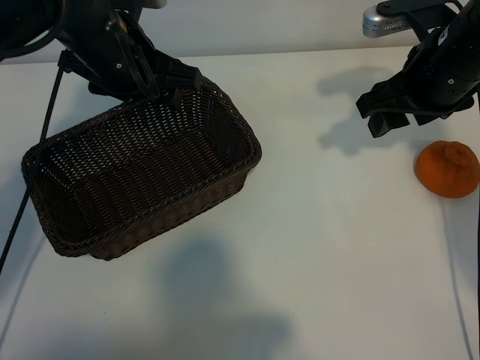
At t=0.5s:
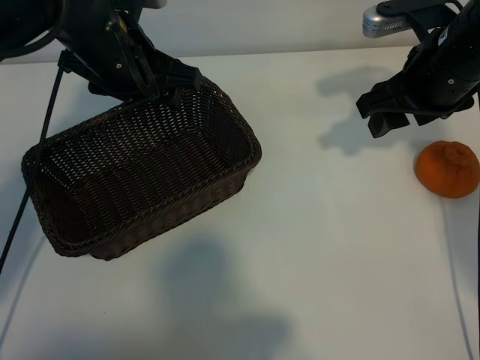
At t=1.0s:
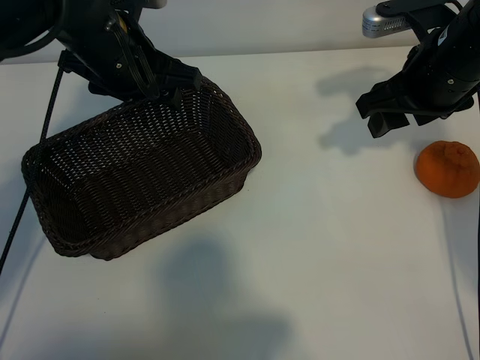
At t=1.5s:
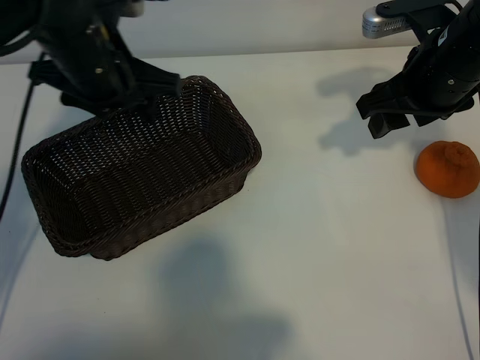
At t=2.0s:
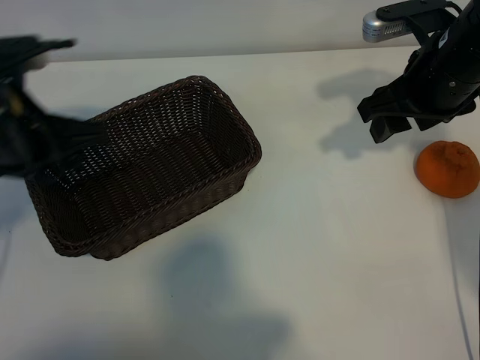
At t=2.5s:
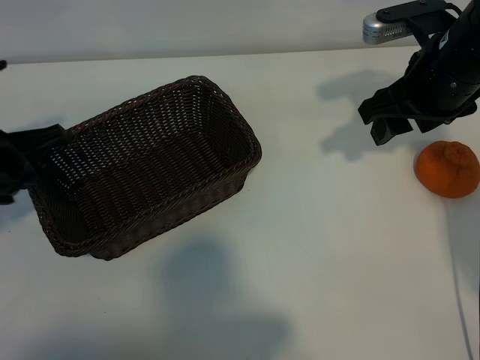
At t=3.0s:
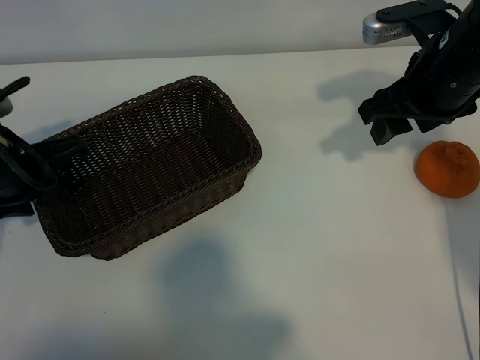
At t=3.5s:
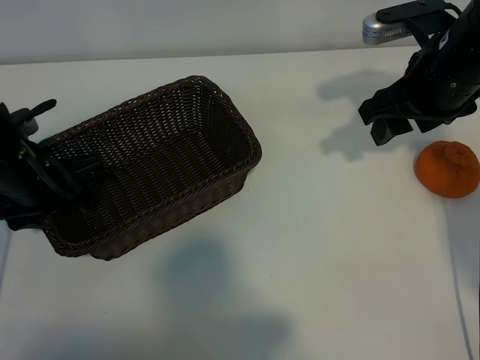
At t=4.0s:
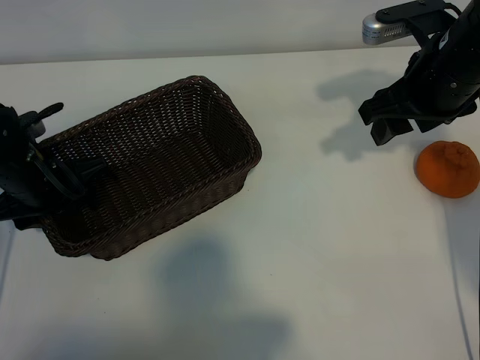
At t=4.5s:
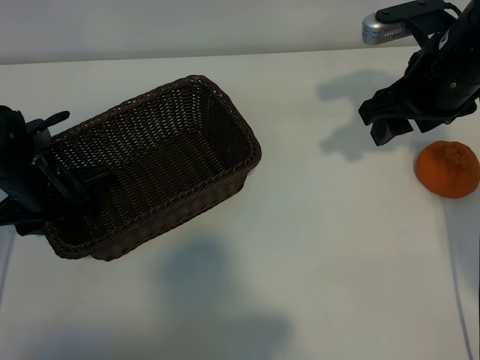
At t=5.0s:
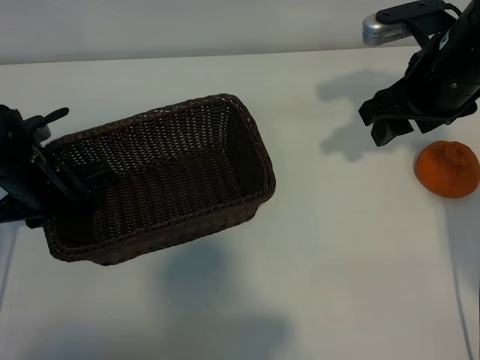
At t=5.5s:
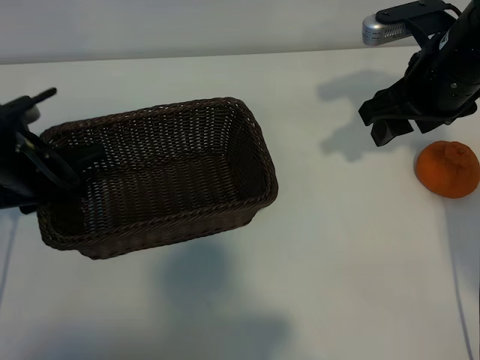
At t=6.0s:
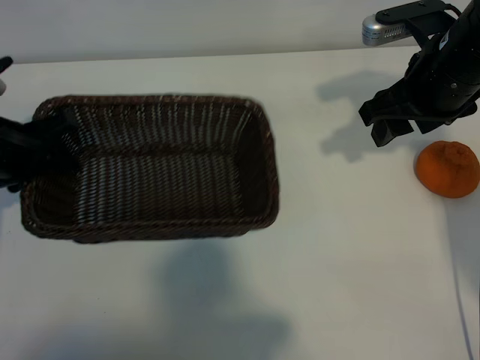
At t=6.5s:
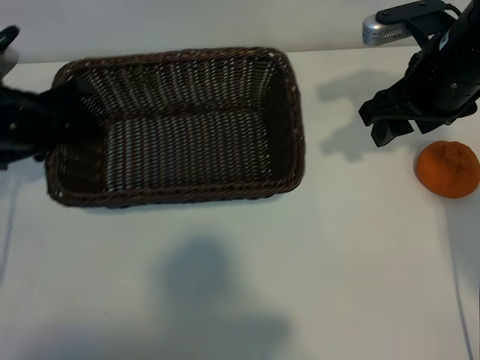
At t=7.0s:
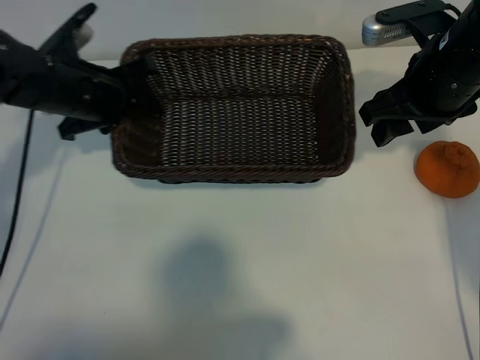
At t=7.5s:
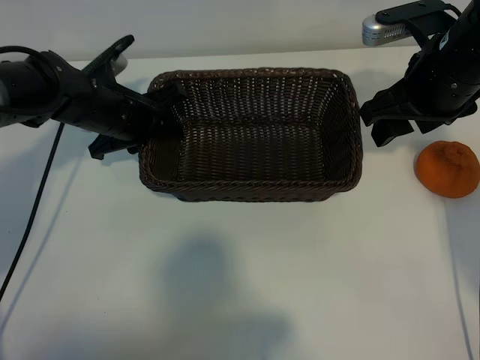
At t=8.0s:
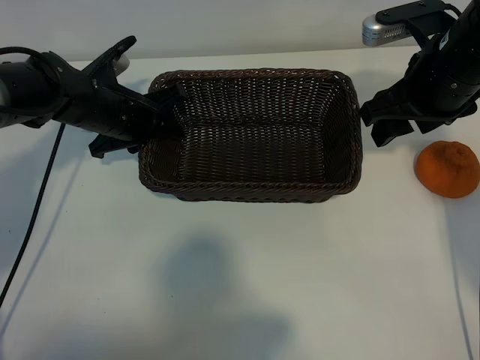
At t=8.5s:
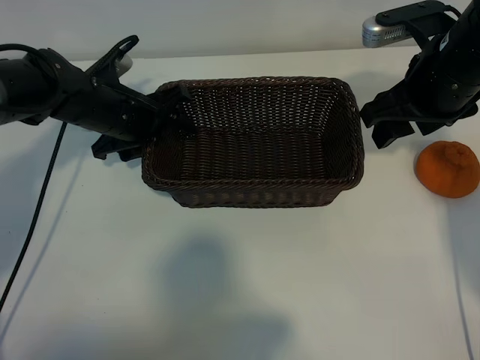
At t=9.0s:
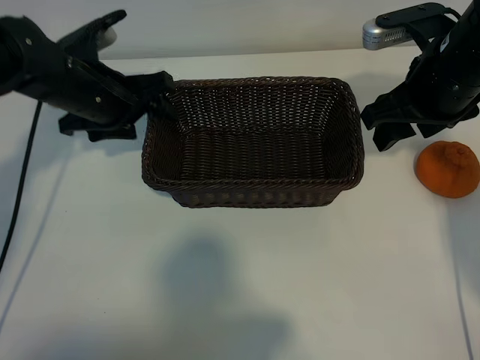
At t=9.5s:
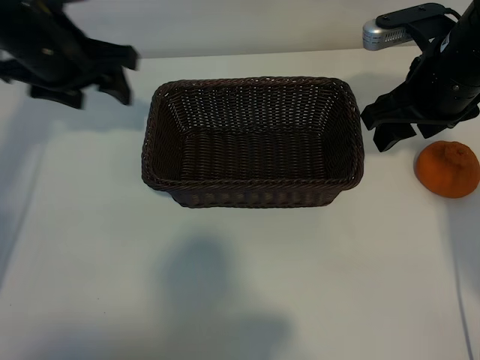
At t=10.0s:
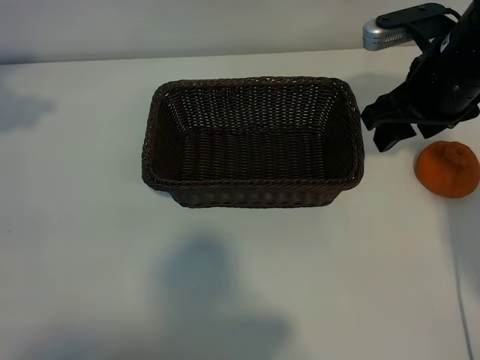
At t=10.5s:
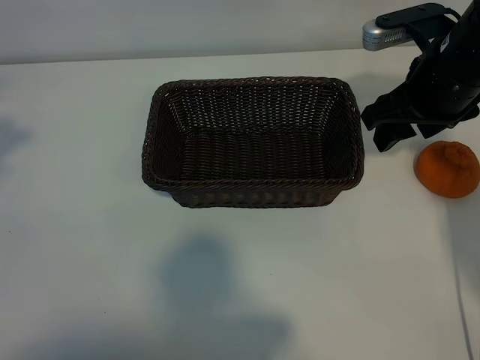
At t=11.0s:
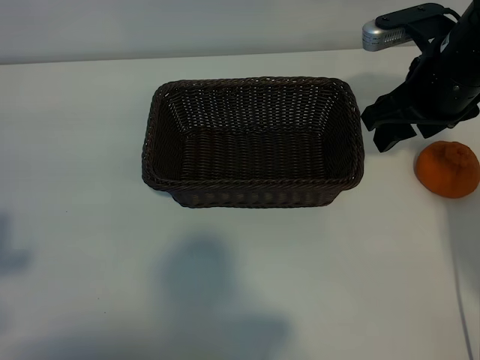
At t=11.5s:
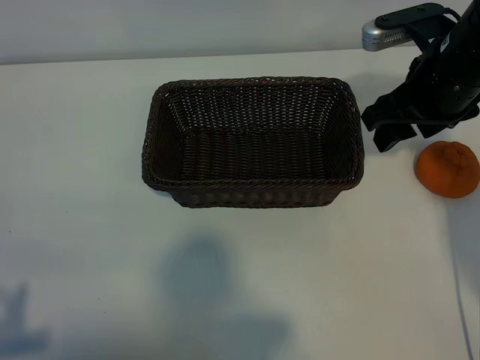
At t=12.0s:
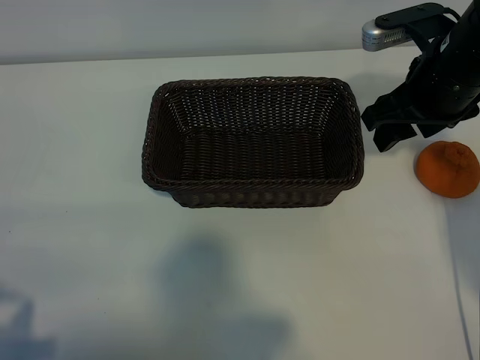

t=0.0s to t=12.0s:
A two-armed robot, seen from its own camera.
Task of the whole recording: pick up the orange and put it into the basket.
Step, t=1.5s to t=5.0s: Grasp the basket with left gripper.
Step, t=5.5s to t=8.0s: Place the basket in the center of view with left gripper.

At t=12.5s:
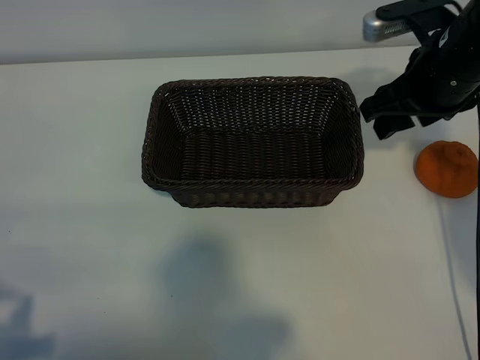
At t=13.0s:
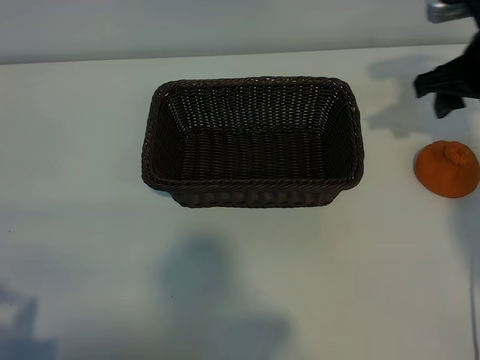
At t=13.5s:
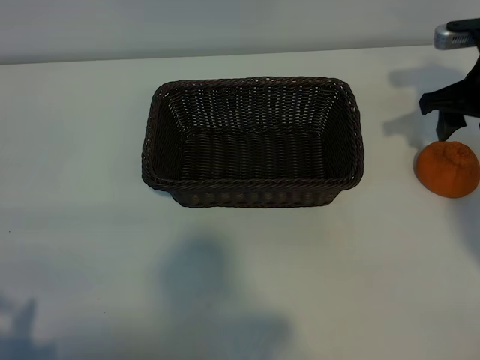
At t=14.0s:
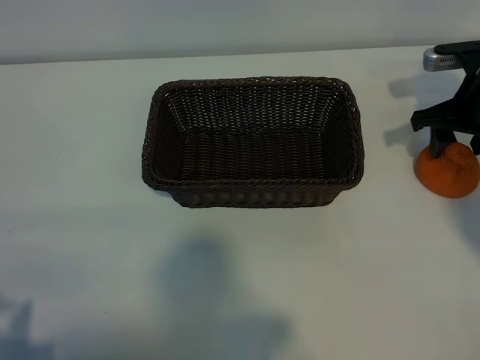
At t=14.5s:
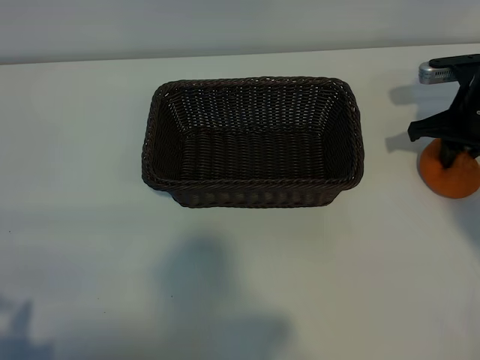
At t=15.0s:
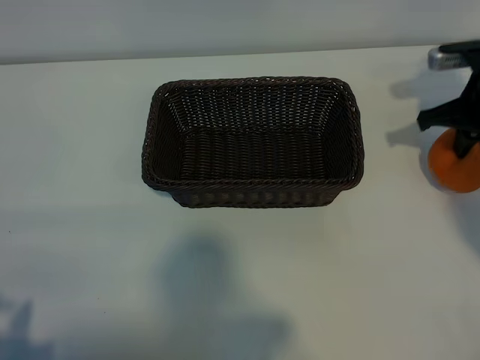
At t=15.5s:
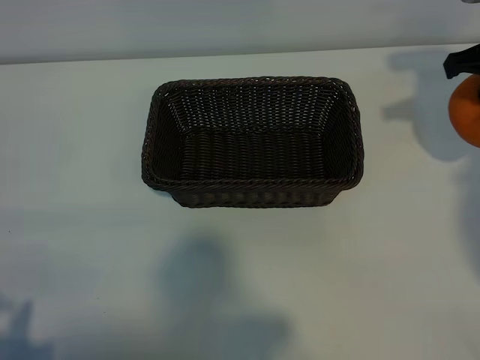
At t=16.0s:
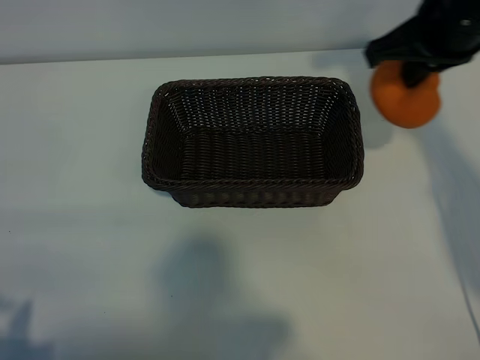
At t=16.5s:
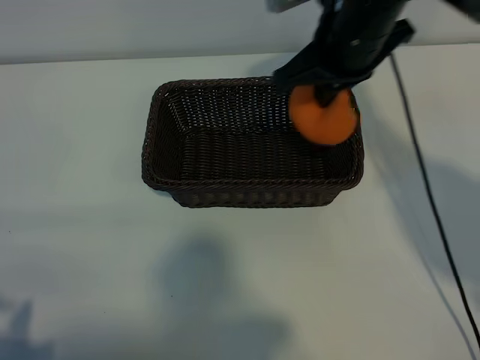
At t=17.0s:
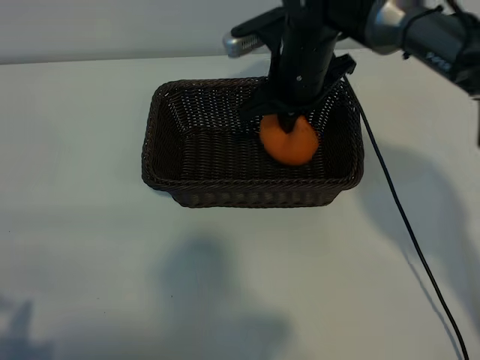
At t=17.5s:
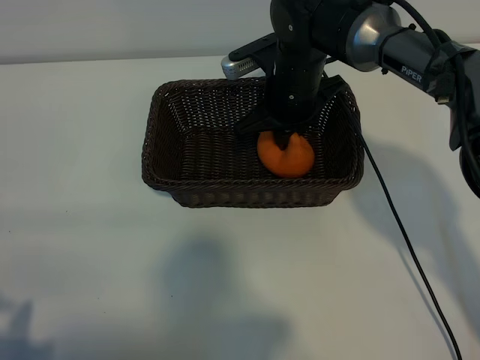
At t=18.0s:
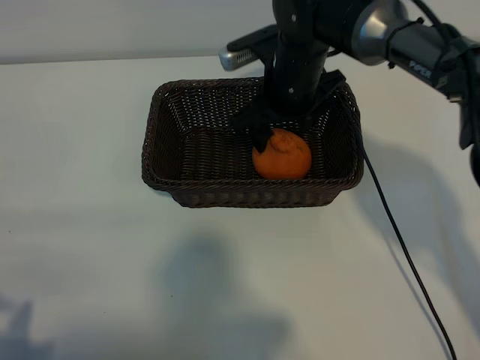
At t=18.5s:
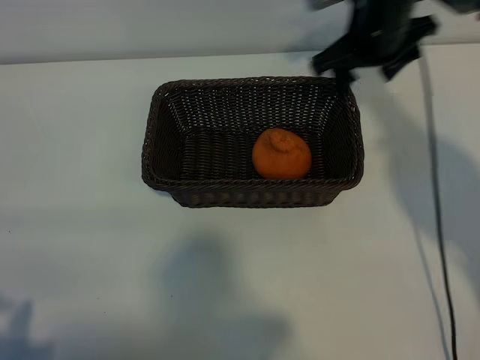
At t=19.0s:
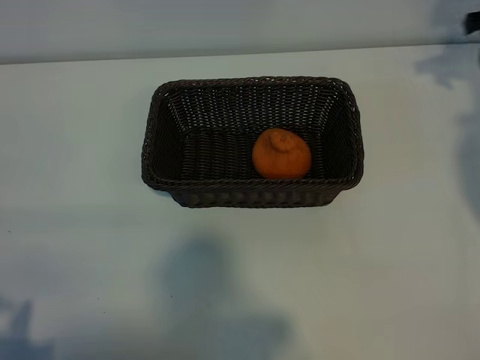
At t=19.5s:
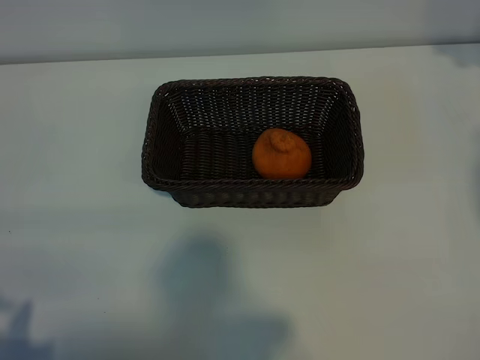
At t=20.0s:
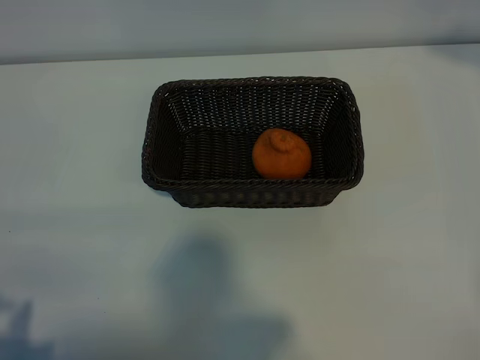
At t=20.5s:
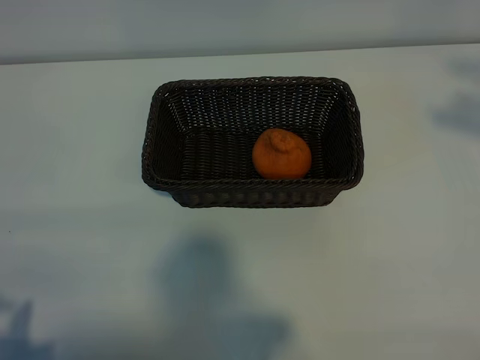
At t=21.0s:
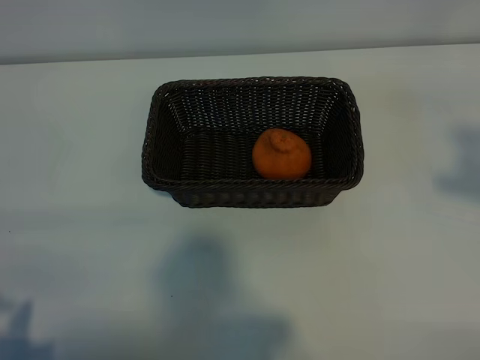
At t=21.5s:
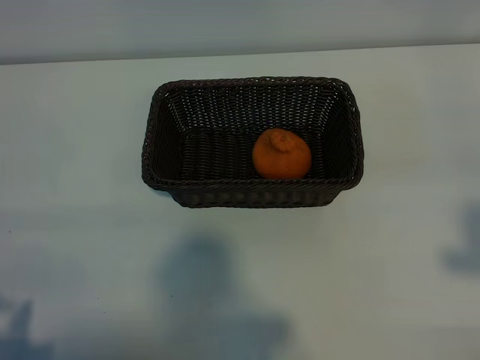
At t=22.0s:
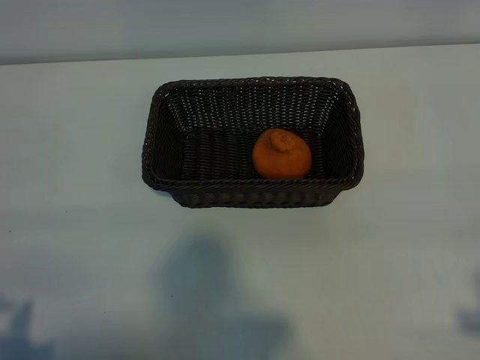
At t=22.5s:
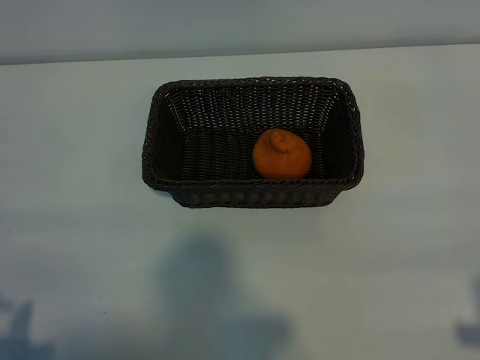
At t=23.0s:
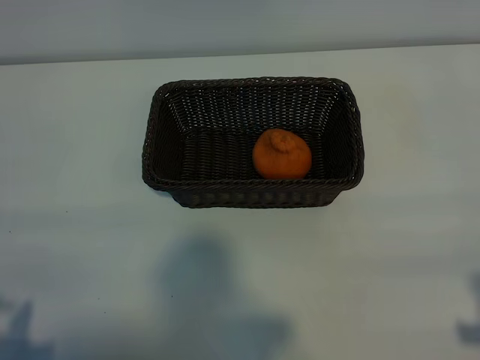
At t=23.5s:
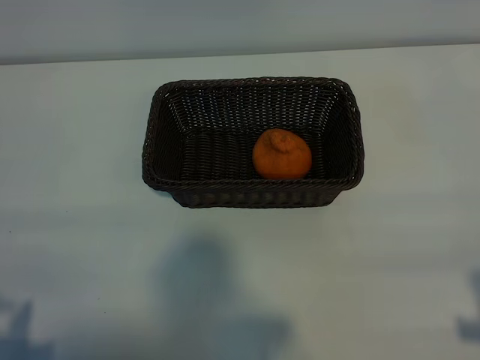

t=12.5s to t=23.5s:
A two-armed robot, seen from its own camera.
Task of the whole recording: pick up the orange and put it into the basket.
Step, t=12.5s to t=14.5s: Grasp the orange with right gripper.
Step, t=15.0s to t=17.5s: Place the orange in the basket with right gripper.
